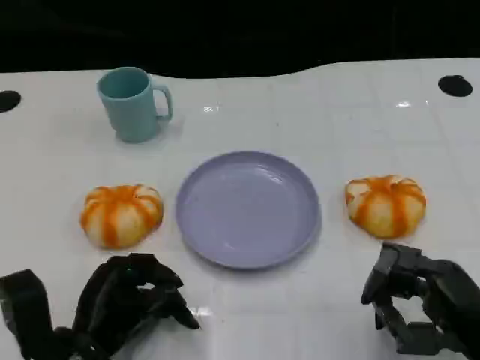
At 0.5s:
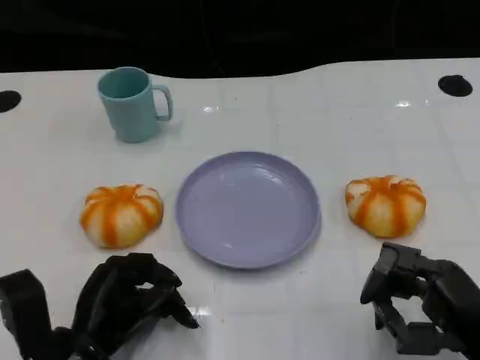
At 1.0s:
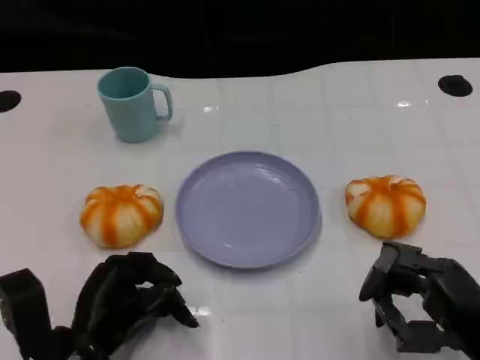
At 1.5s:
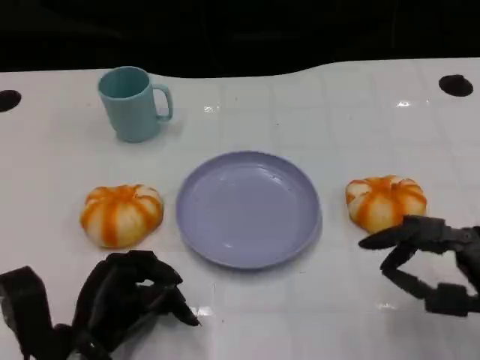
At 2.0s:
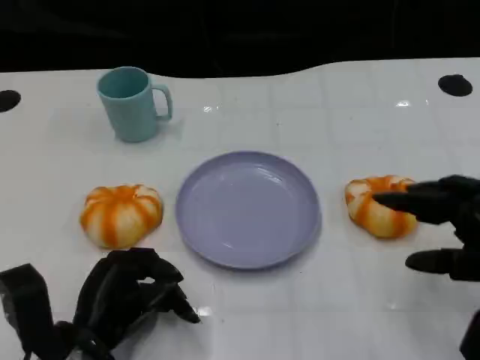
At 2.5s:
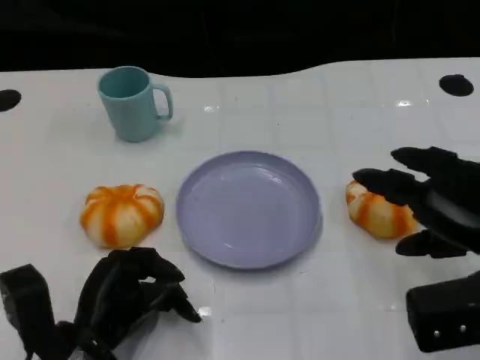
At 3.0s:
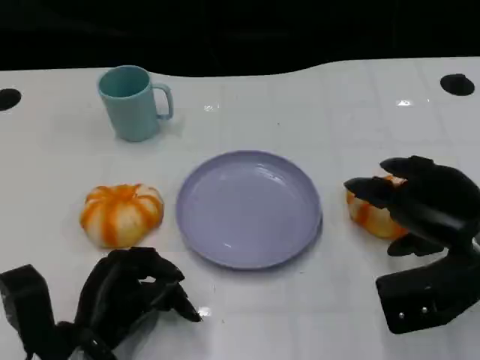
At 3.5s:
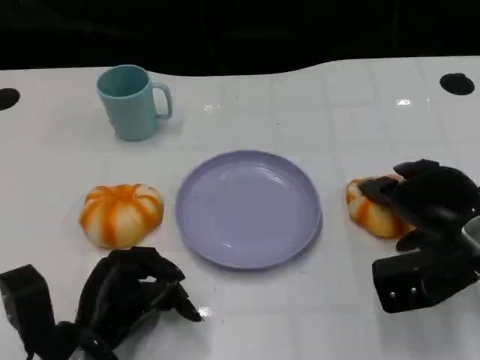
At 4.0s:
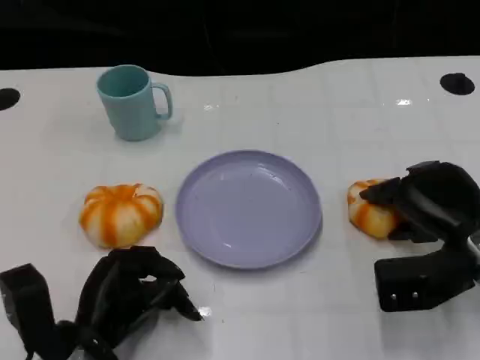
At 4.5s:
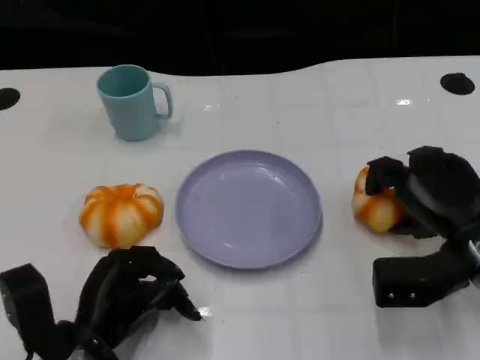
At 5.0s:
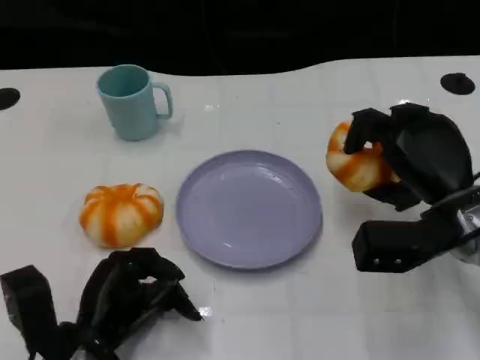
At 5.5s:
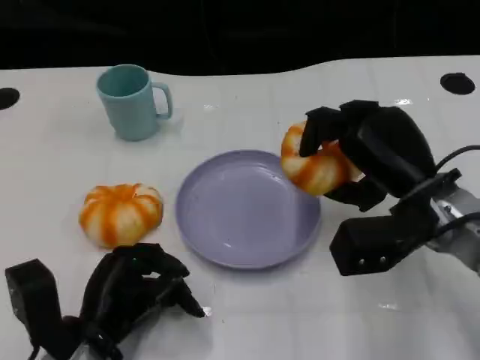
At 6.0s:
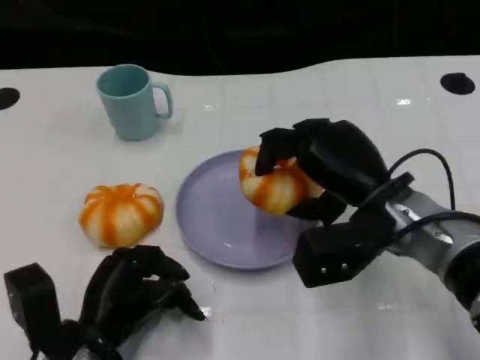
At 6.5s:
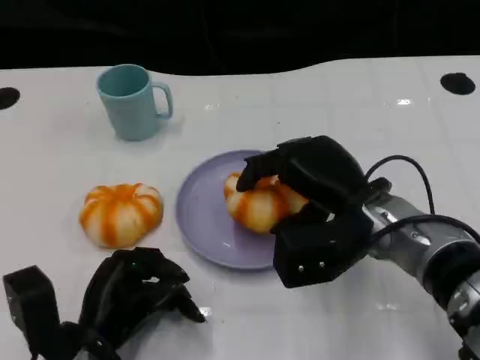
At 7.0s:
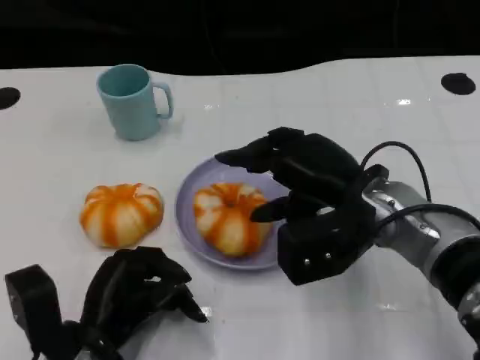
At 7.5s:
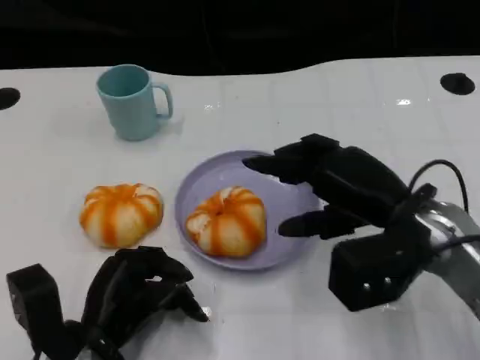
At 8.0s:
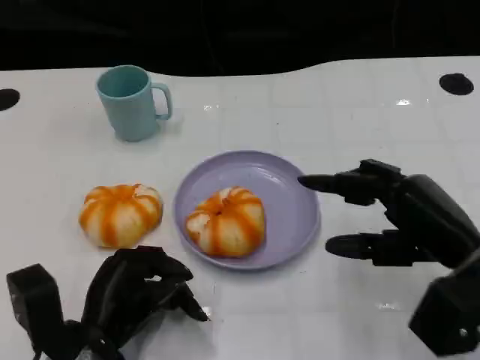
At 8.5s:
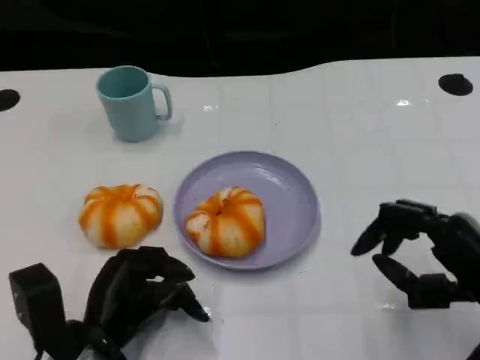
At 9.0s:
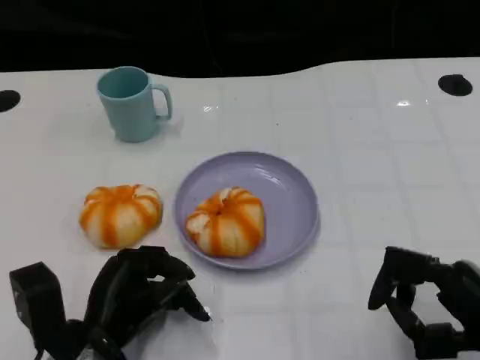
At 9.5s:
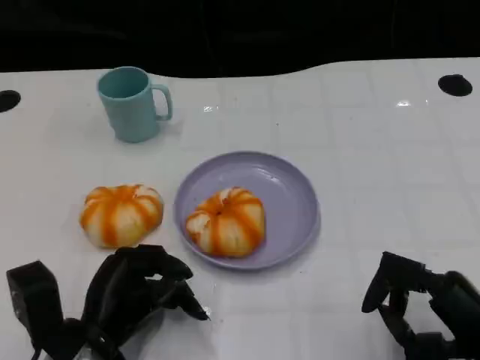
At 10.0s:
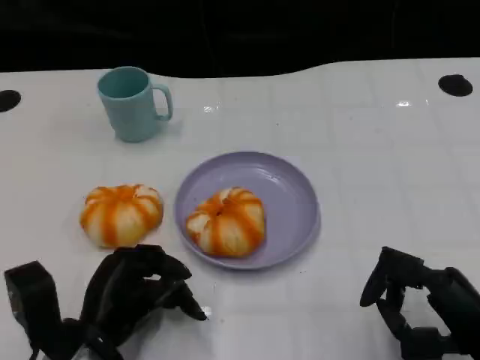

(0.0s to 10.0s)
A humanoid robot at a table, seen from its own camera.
Task of the whole recording: Grasp the bread from the table and place it into the plate.
0.0s - 2.0s: The right hand is displaced upward by about 10 cm.
2.0s - 4.0s: The right hand is displaced forward and downward by about 10 cm.
4.0s - 6.0s: The right hand goes approximately 10 cm to the left.
6.0s - 8.0s: The right hand is displaced to the right and backward by approximately 10 cm.
8.0s - 10.0s: The right hand goes roughly 10 cm backward and downward.

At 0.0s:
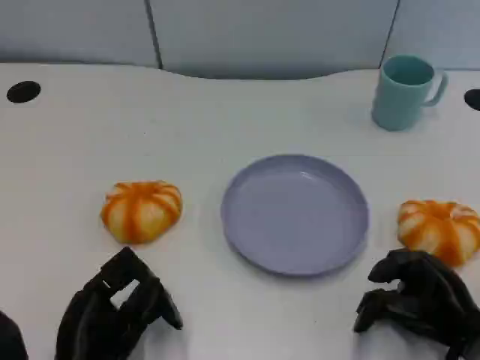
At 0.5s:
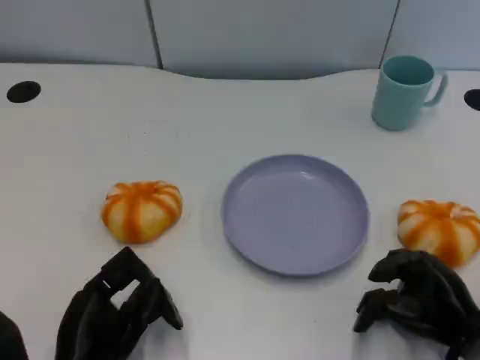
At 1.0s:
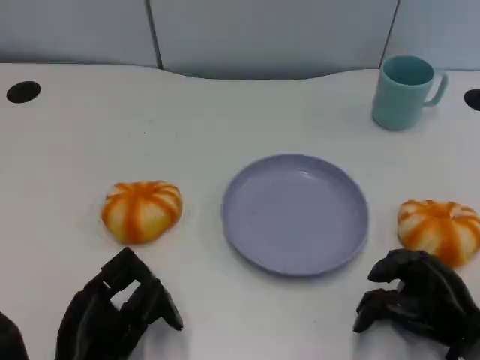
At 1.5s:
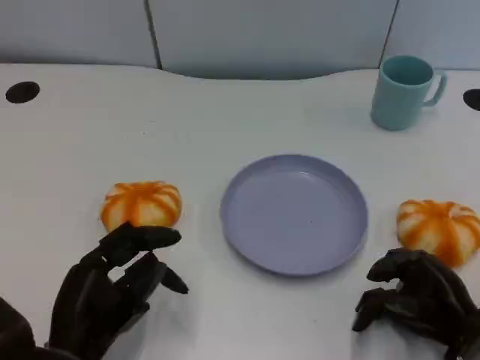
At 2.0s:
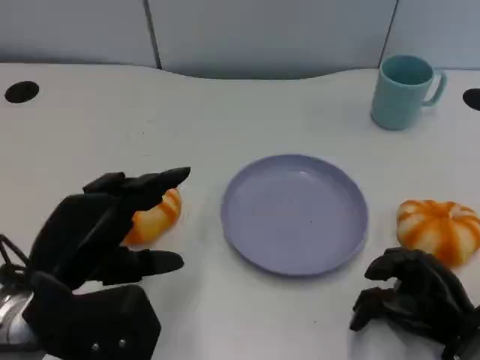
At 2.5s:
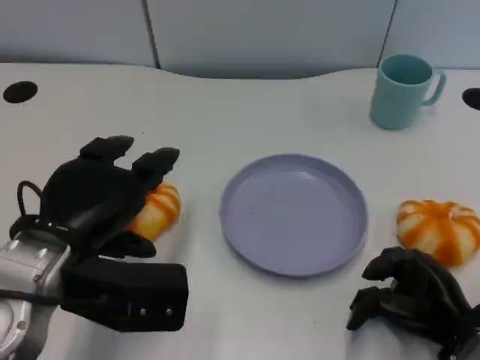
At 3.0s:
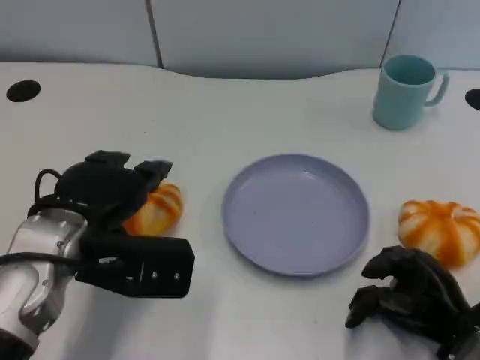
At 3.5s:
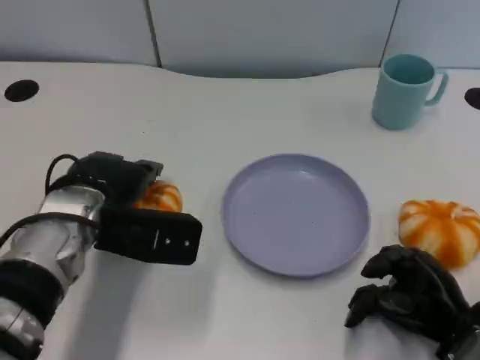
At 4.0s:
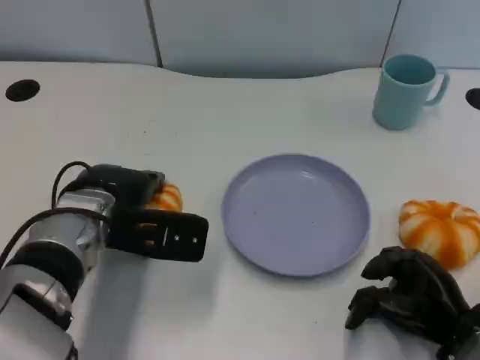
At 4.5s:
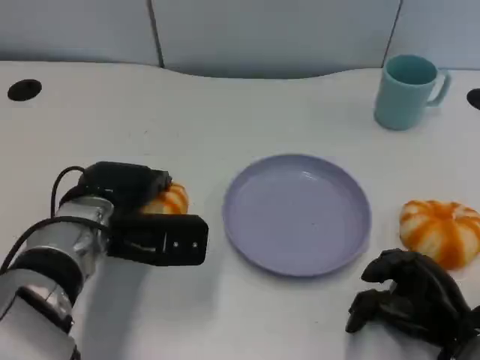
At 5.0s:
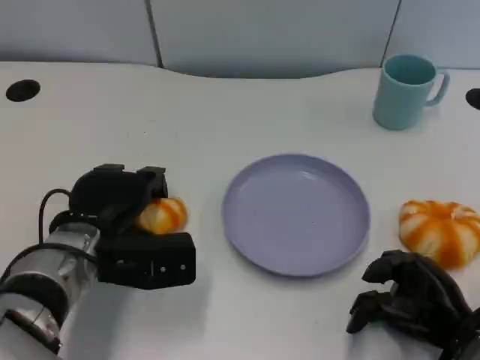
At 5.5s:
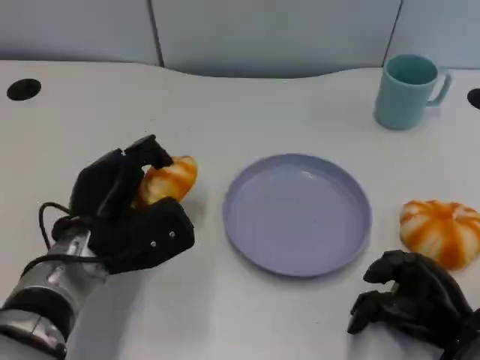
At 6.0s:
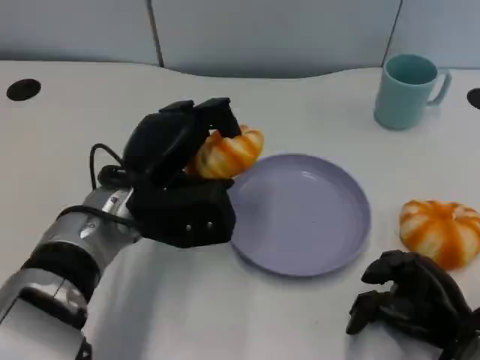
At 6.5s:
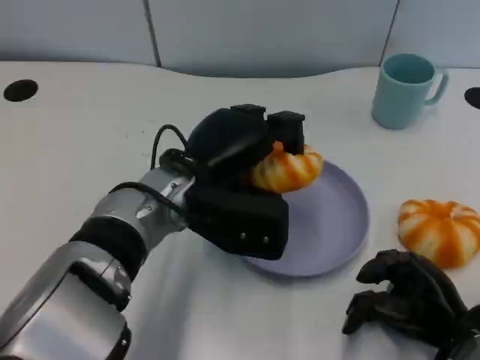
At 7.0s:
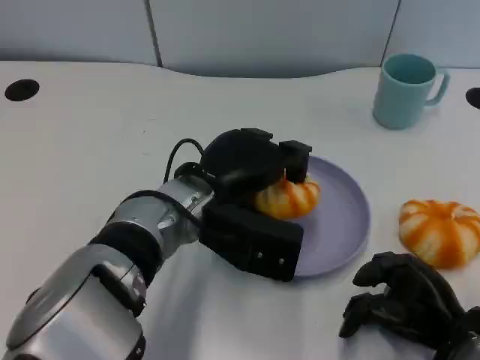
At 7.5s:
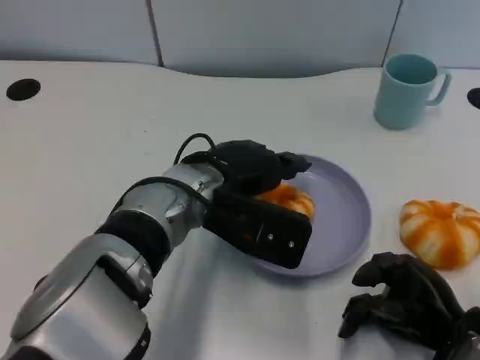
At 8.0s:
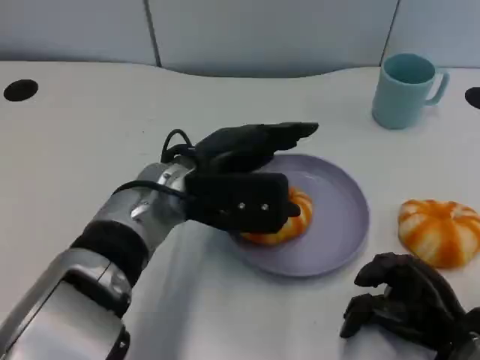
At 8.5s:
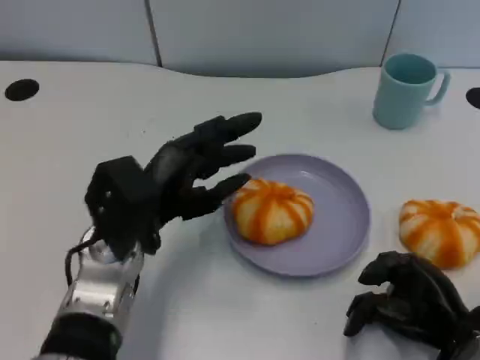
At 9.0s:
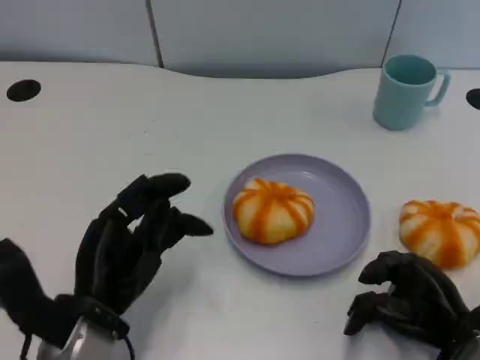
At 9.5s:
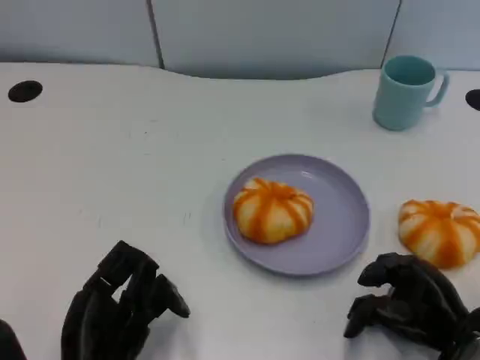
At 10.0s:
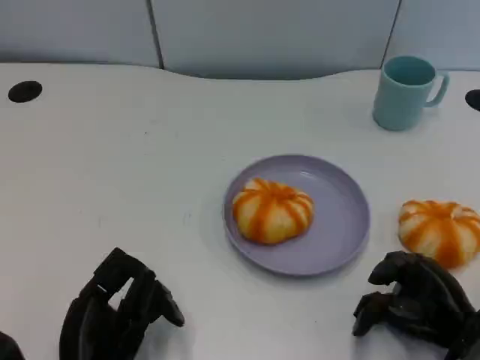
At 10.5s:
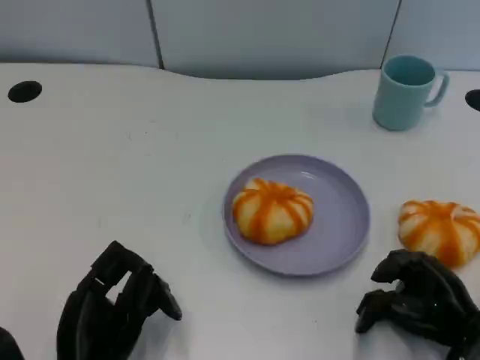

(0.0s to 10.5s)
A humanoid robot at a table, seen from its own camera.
Task of the whole recording: Grasp the bread from the table and place it into the plate.
0.0s - 2.0s: The left hand heads upward, covering approximately 10 cm.
2.0s - 4.0s: The left hand travels forward by some 10 cm.
4.0s - 6.5s: The left hand is displaced to the right by some 10 cm.
6.5s - 8.5s: The left hand heads to the left, covering some 5 cm.
8.5s - 10.5s: The left hand is displaced backward and downward by about 15 cm.

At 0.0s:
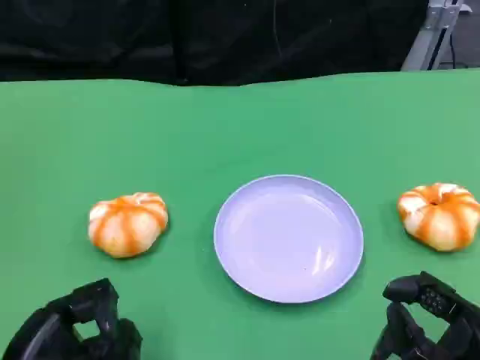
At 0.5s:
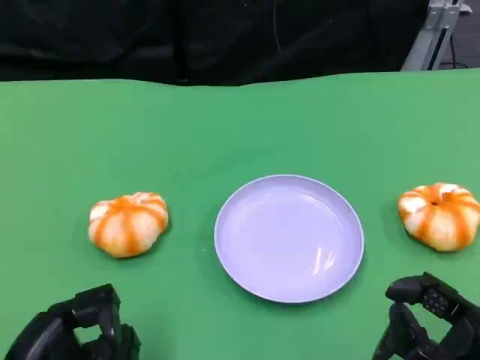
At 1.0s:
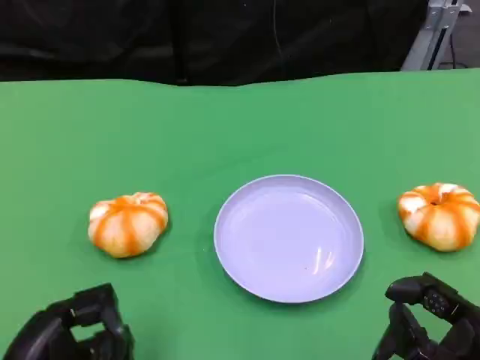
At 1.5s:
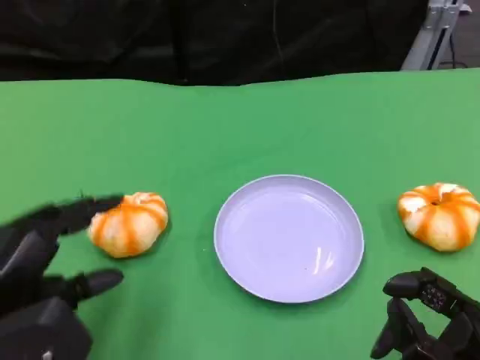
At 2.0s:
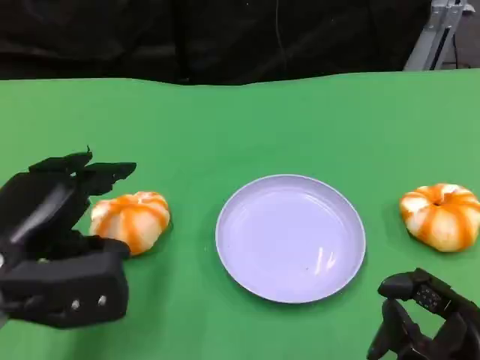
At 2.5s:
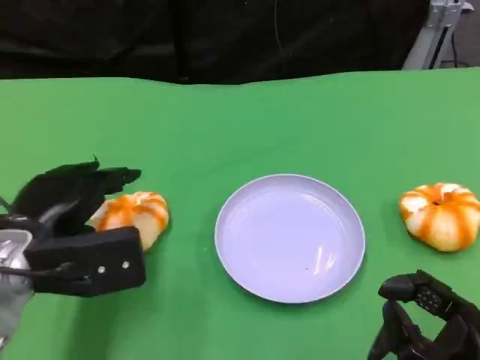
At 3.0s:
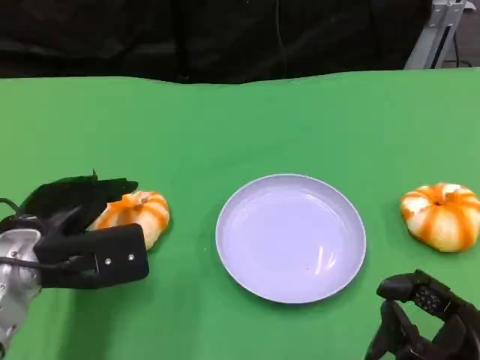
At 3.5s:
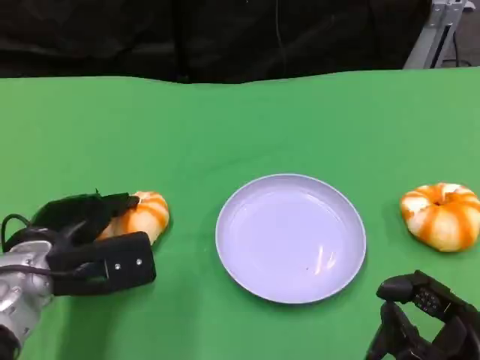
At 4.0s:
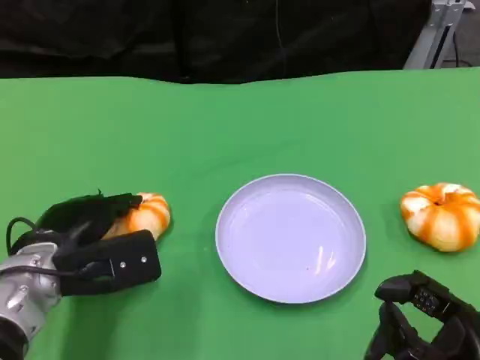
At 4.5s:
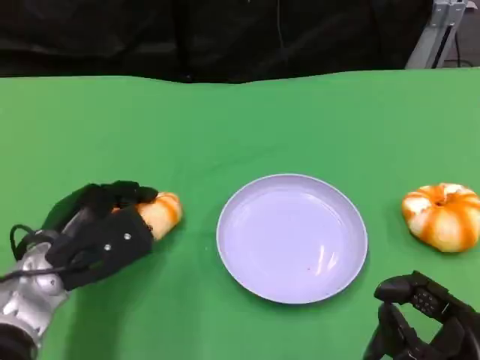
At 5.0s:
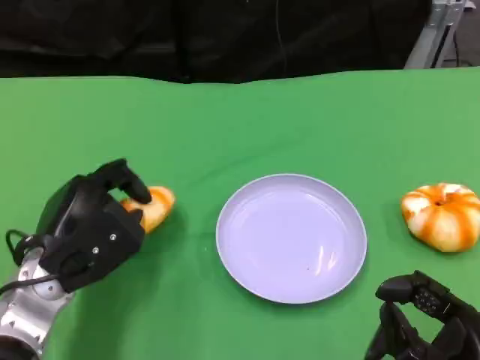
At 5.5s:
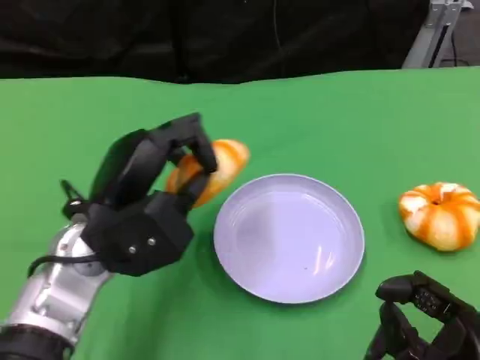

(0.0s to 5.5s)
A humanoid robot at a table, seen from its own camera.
Task of the whole recording: Grasp the bread from the table and place it into the plate.
0.0s - 2.0s: The left hand heads forward and upward, covering roughly 10 cm.
2.0s - 3.5s: The left hand goes about 5 cm downward.
3.5s - 5.5s: The left hand travels to the right and upward by about 10 cm.
